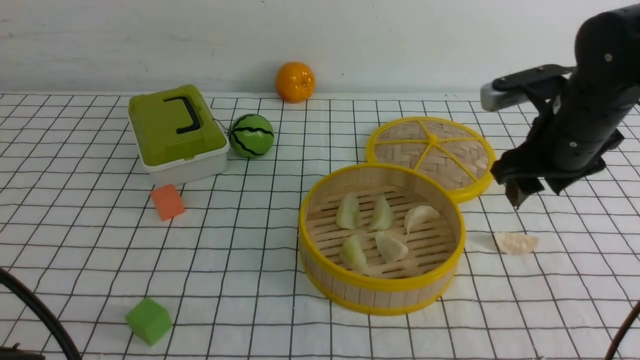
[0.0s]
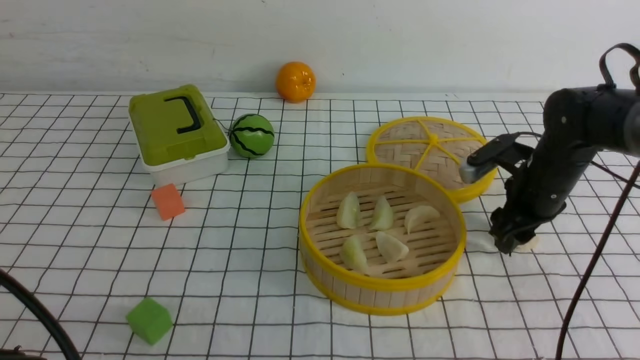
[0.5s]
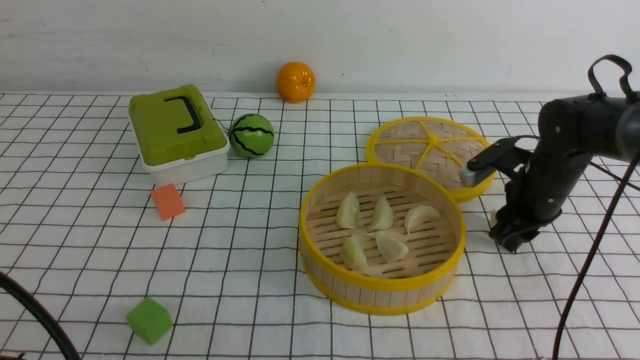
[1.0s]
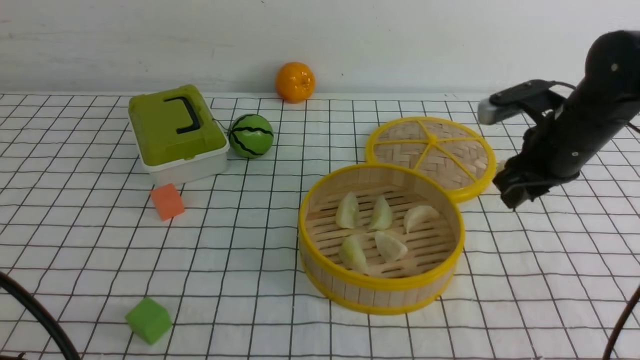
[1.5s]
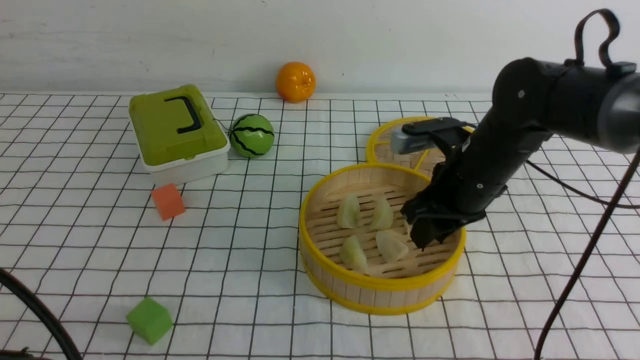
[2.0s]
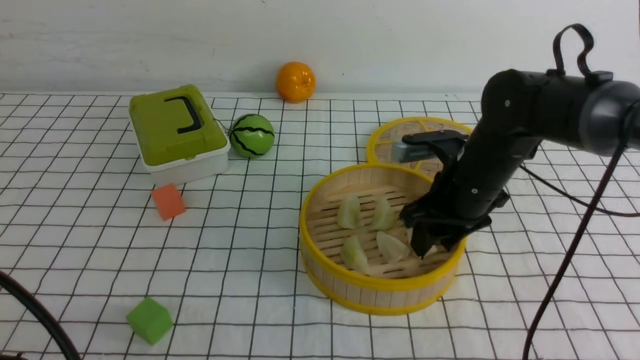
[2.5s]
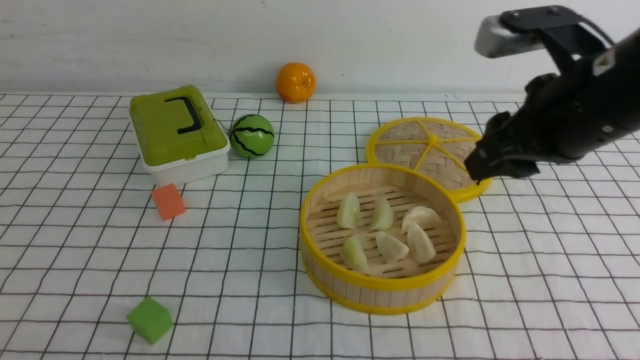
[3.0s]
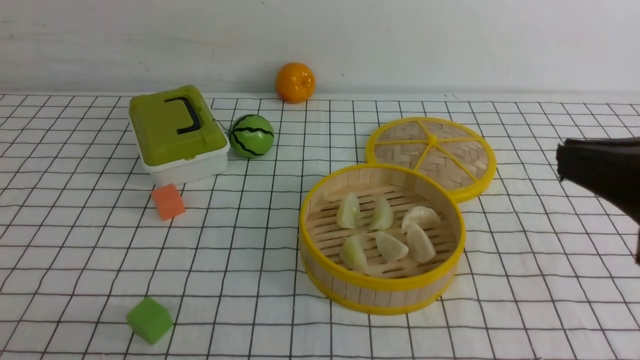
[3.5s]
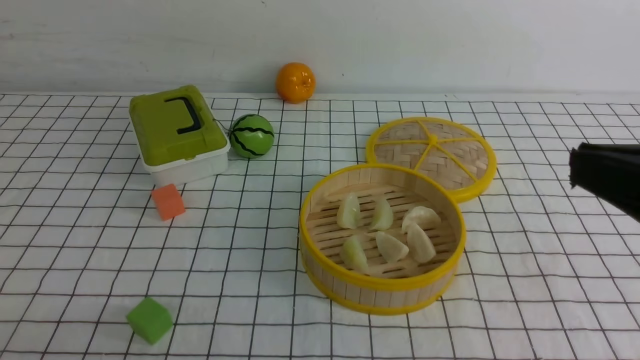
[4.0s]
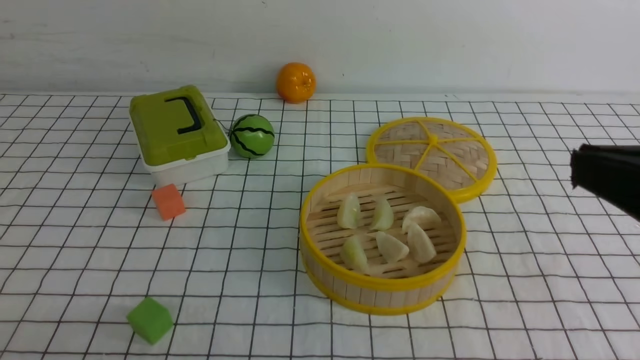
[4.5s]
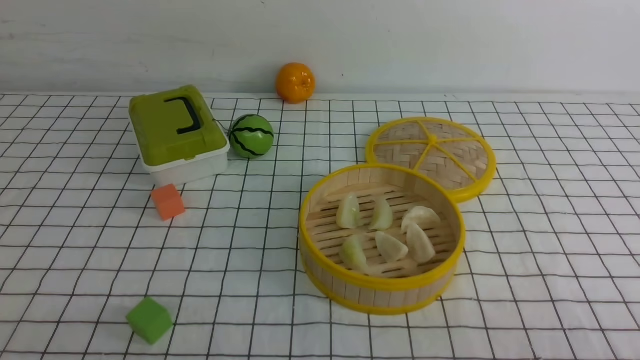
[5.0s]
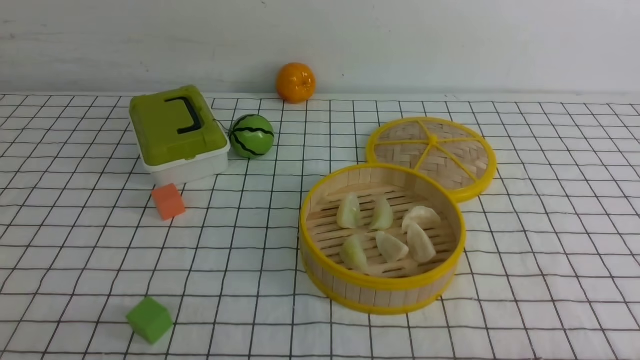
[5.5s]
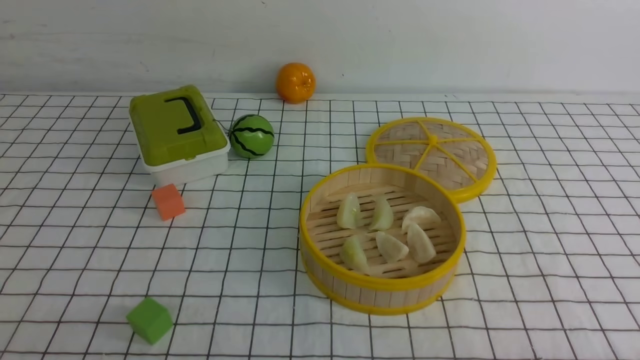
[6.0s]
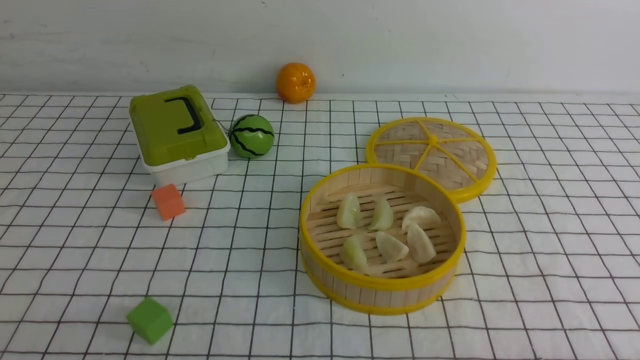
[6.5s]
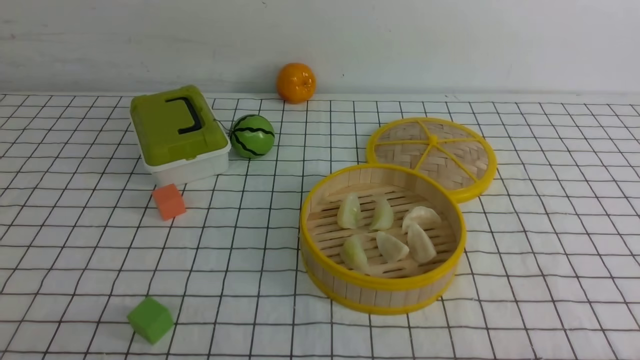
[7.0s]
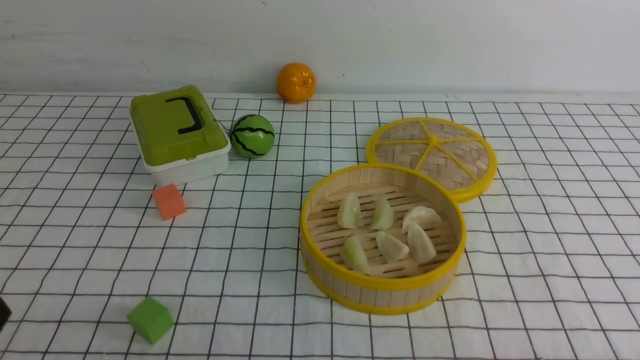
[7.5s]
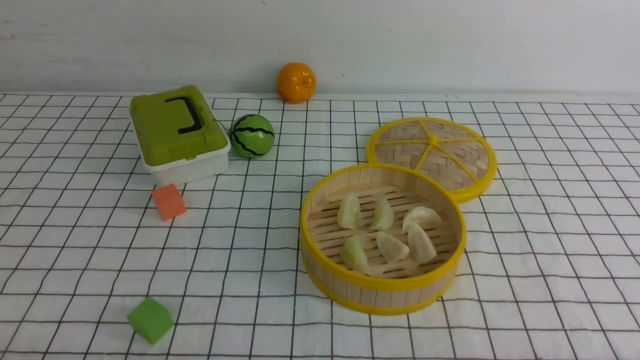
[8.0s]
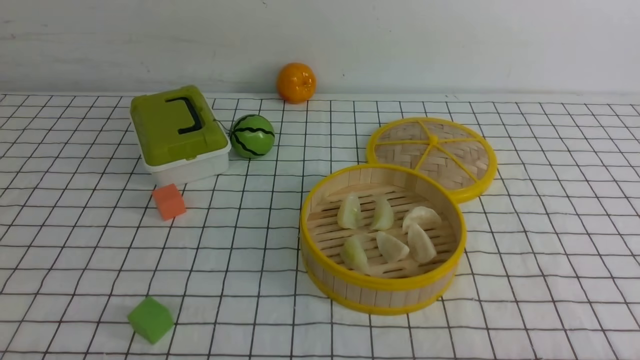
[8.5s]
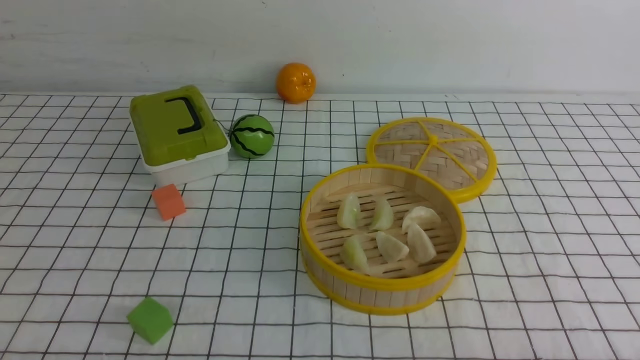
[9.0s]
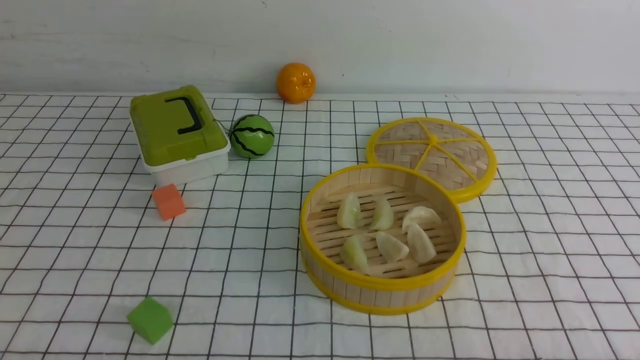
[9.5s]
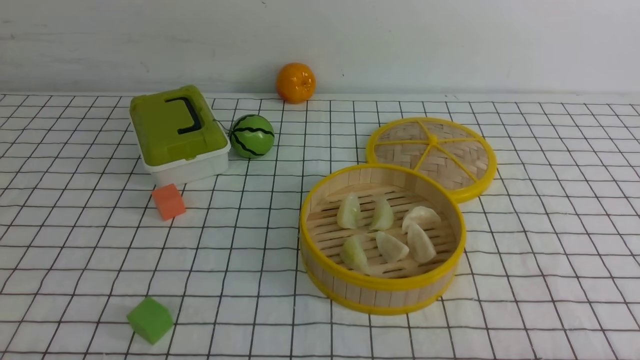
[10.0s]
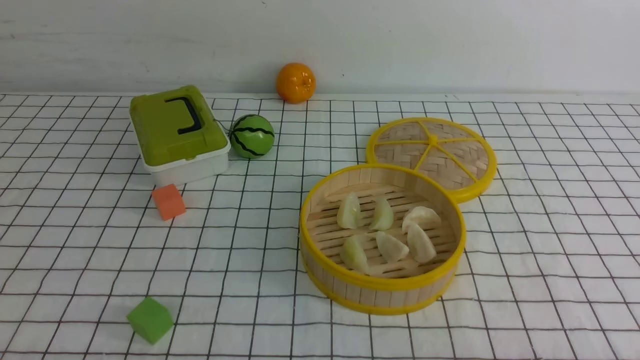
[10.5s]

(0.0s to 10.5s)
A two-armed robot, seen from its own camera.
Task of the whole recording: put the dumplings into the steamer on the table with the white tablecloth.
Step, 0.0s - 1.5s: use the right arm to grab a dumpling.
Step, 2.0s - 2.5s: use the right arm to put the dumpling into the steamer.
0.0s - 2.0s: The right gripper goes roughly 5 cm to the left, and closes its fingers.
2.0s - 4.0s: The right gripper heads backward and upward, covering approximately 30 cm, and closes its fingers. The left gripper changes place by some 10 cm.
4.0s - 6.5s: The right gripper travels downward by some 20 cm.
8.5s - 10.5s: The two grippers keep their place.

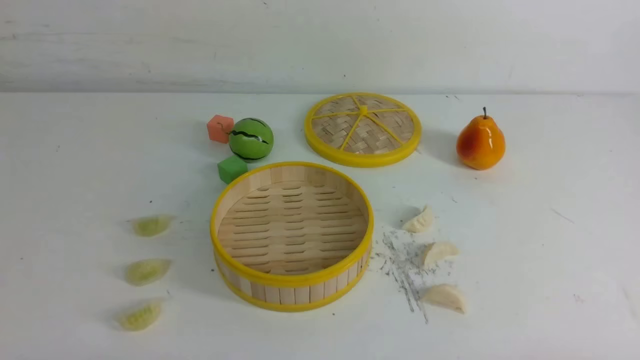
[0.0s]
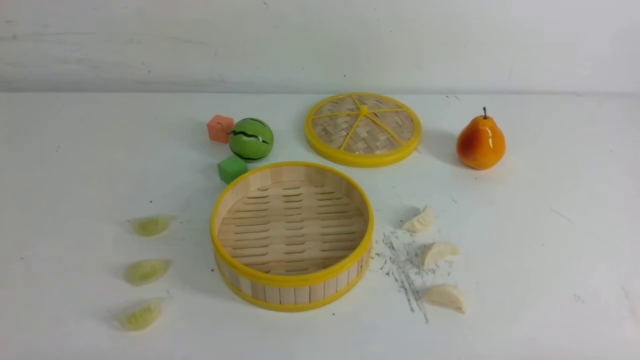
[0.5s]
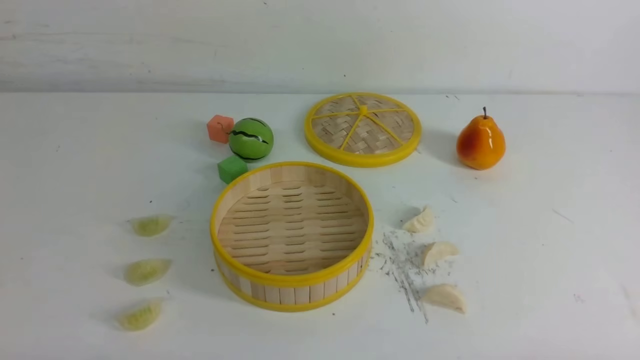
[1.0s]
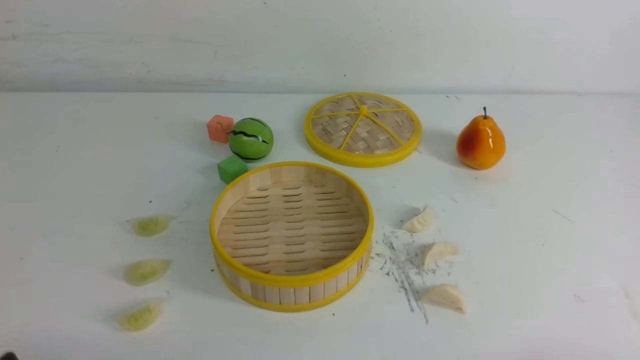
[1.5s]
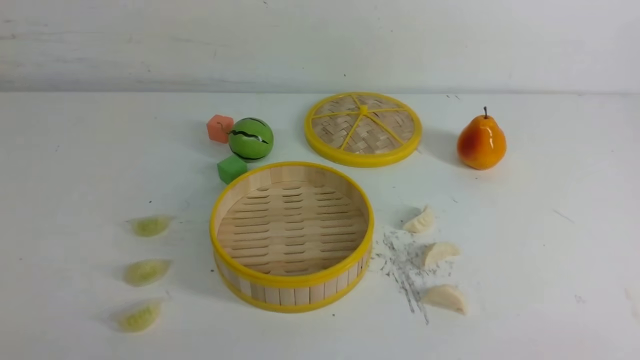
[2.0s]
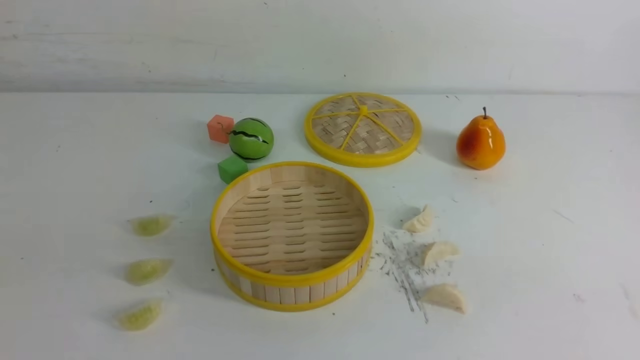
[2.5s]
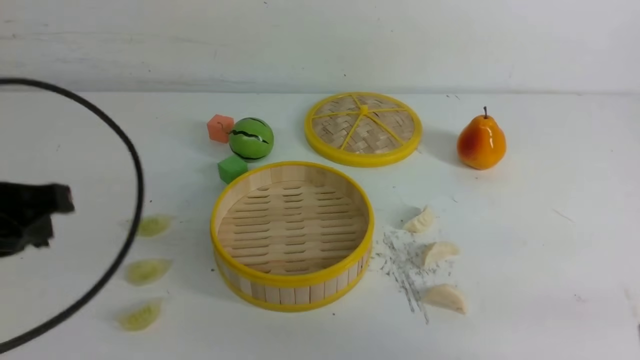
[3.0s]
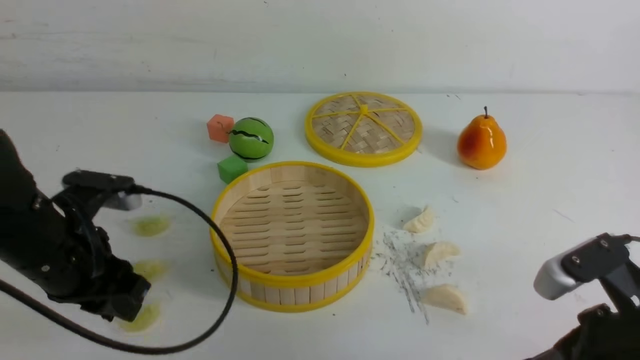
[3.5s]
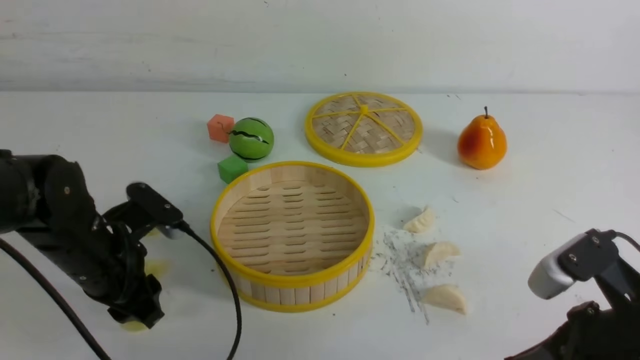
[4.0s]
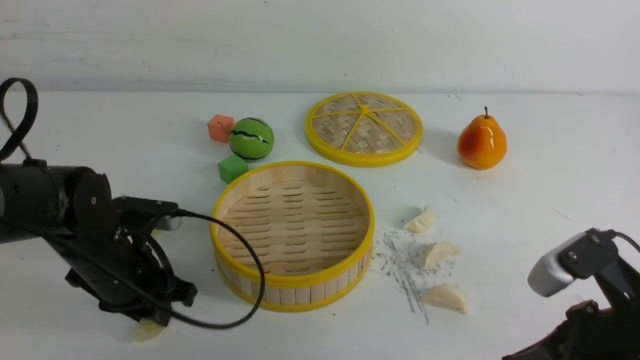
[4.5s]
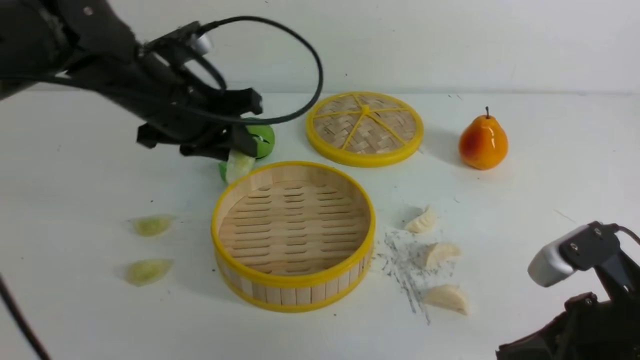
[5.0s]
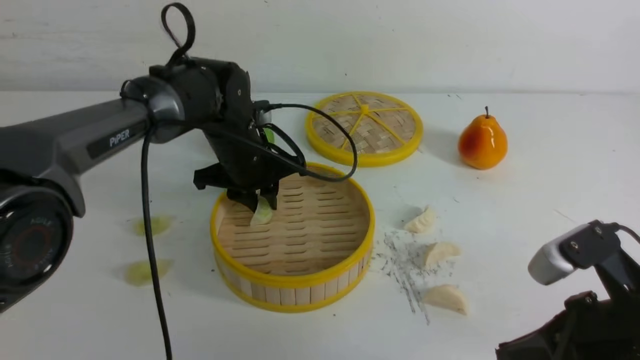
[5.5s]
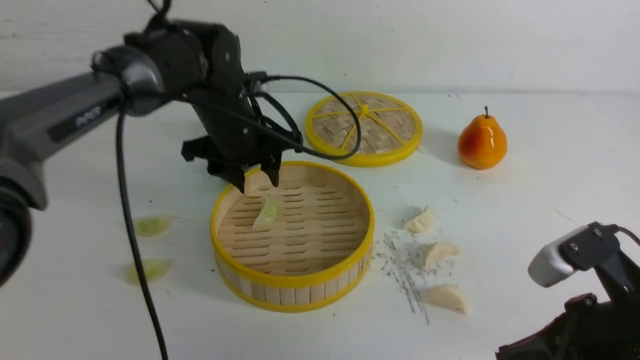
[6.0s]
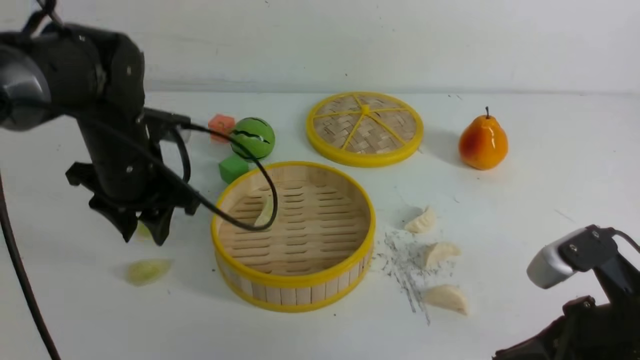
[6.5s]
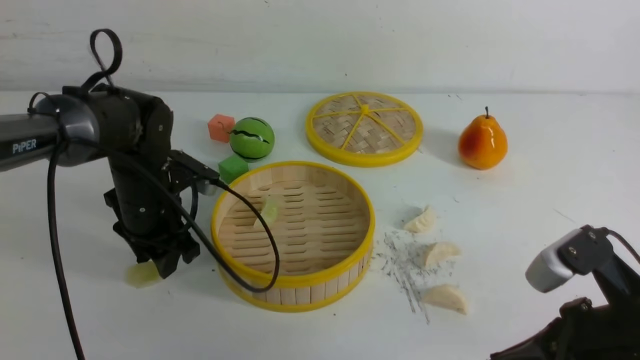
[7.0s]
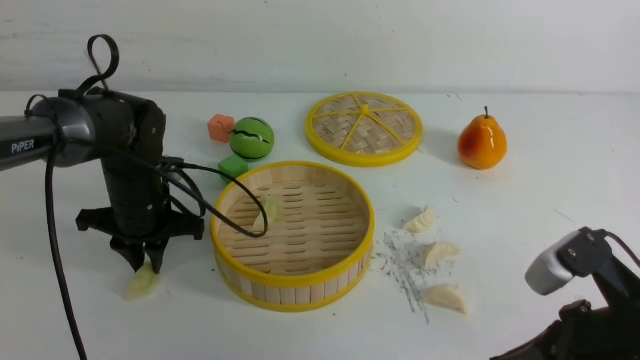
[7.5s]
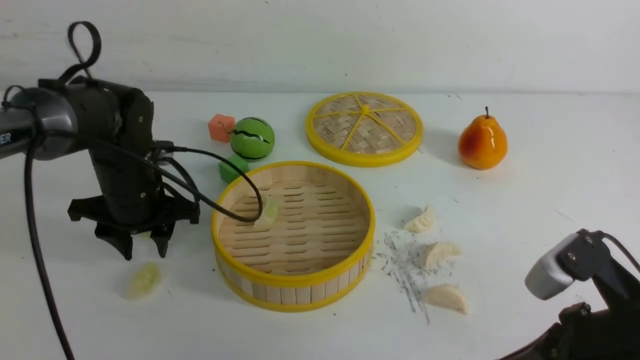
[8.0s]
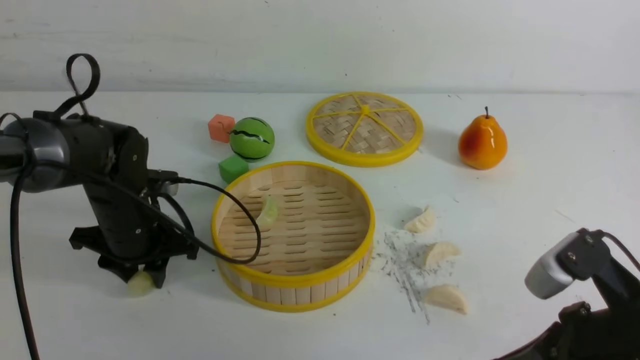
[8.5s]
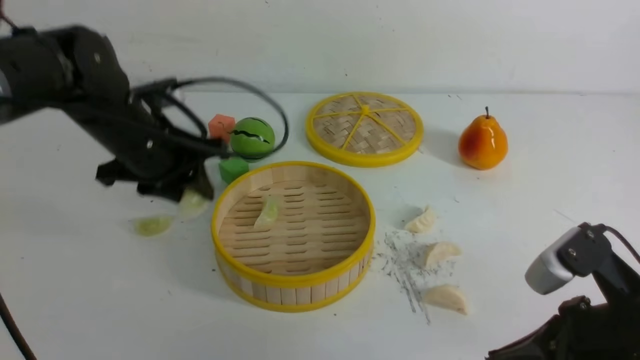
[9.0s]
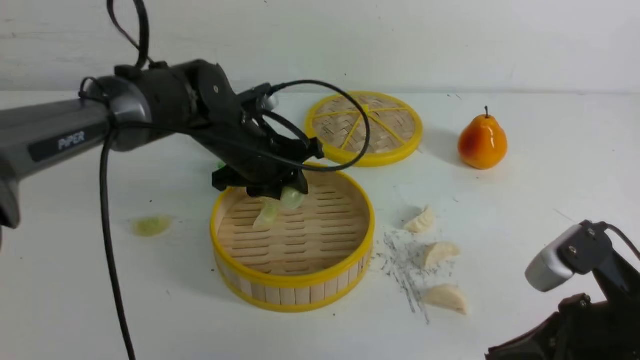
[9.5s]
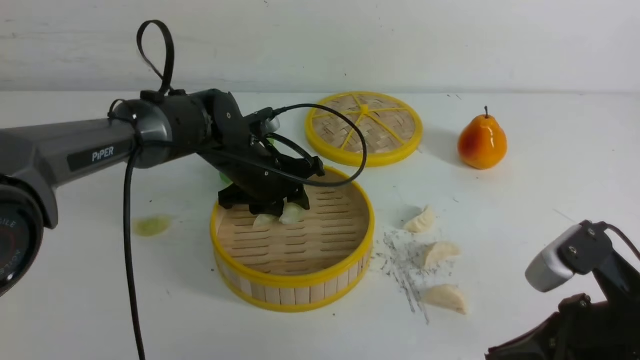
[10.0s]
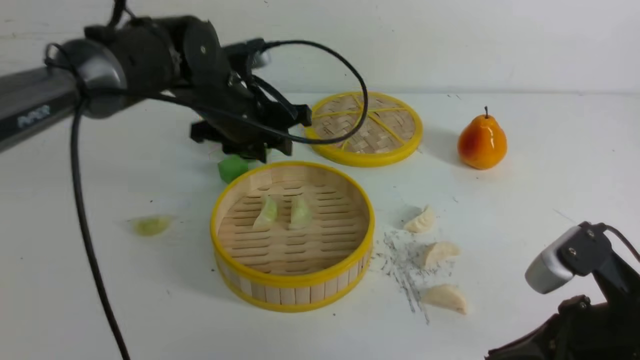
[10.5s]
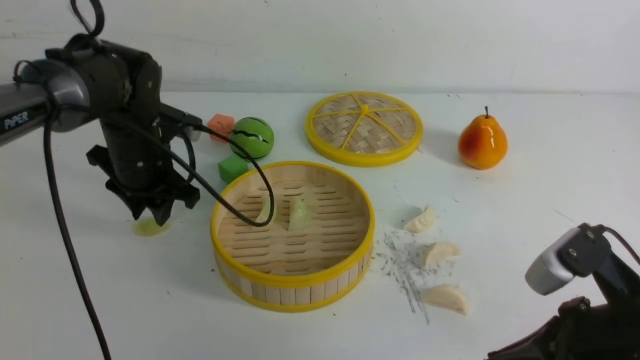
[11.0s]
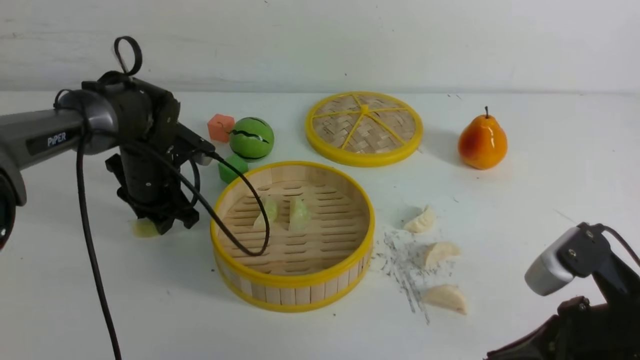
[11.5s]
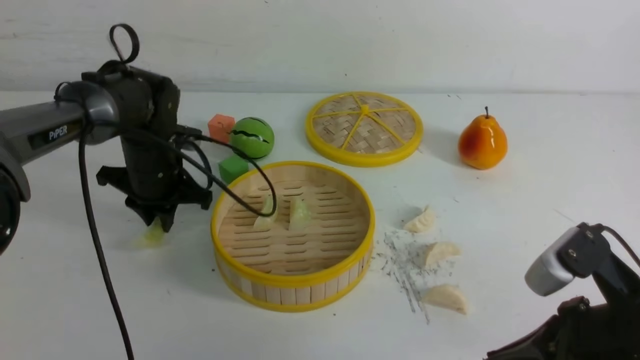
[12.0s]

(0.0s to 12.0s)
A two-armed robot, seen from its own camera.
Task of the whole recording: put the dumplings into the steamer on the white table.
Step, 0.0s - 4.5s: use the left arm to grab a dumpling.
Step, 5.0s - 5.5s: use the left arm to put the dumpling into the steamer.
Step, 6.0s - 8.5s: use the left arm to grab a dumpling.
Step, 9.0s - 10.0s: use the left arm to put the dumpling into the steamer.
Step, 10.5s - 12.0s: use the left arm to grab a dumpling.
2.0s - 4.0s: The right gripper shifts approximately 15 cm forward and to the left, and closes; the left gripper travels forward by roughly 25 cm, and opens its fingers.
4.0s - 6.0s: The left gripper moves forward, to the right and upward, roughly 20 cm.
6.0s - 8.0s: The left gripper shifts some 15 cm to the left and downward, and closes, then reopens.
8.0s - 10.0s: The left gripper is displaced to the right by roughly 15 cm.
10.0s - 12.0s: The left gripper shifts some 10 cm to the left, and closes.
